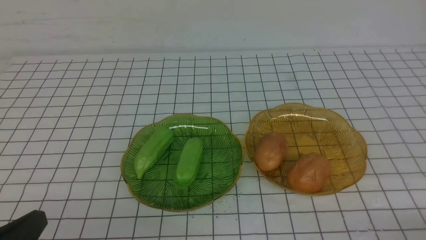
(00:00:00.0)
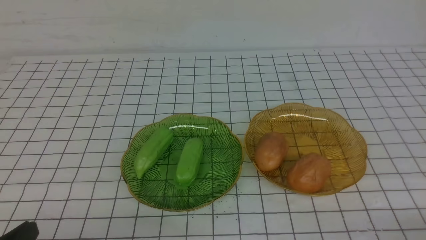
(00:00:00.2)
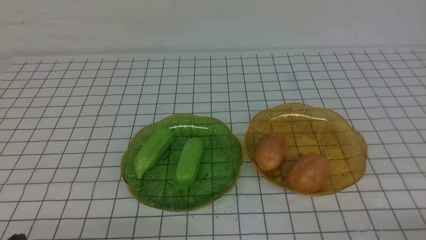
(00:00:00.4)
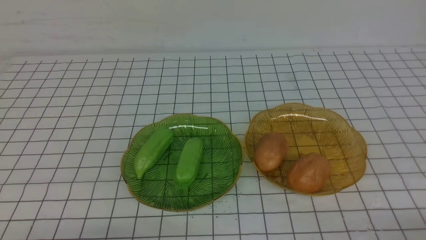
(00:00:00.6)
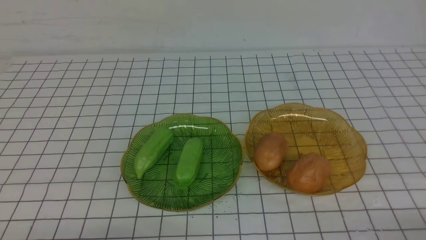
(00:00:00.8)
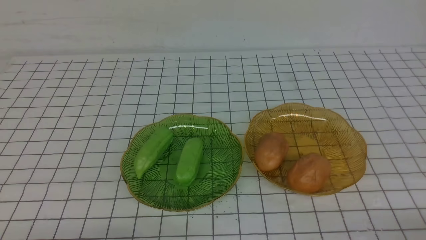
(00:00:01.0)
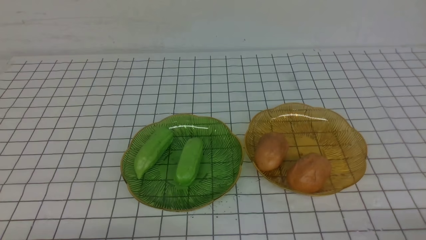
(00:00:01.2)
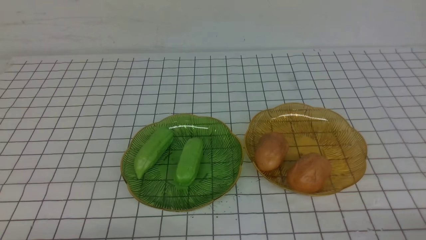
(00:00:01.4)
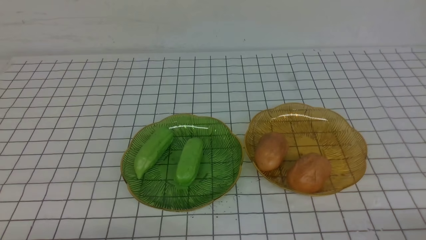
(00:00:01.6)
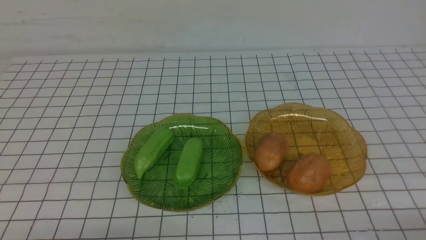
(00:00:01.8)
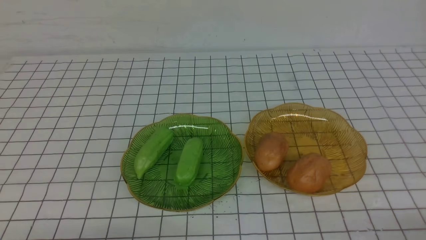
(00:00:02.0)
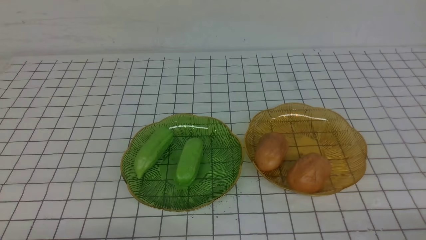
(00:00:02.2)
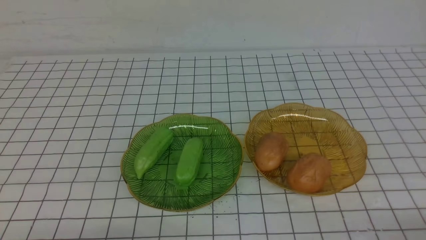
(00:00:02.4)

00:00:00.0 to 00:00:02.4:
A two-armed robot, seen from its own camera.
00:00:00.0 to 00:00:01.2: The left gripper goes some 5 cm downward.
00:00:01.2 to 00:00:02.4: Neither gripper changes place.
